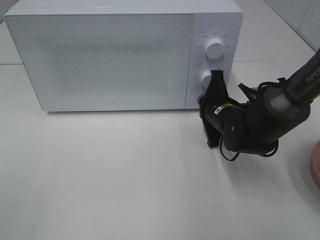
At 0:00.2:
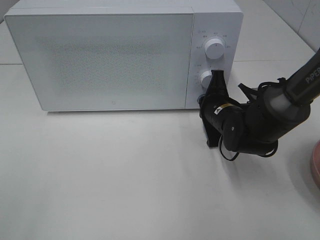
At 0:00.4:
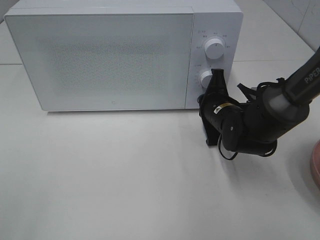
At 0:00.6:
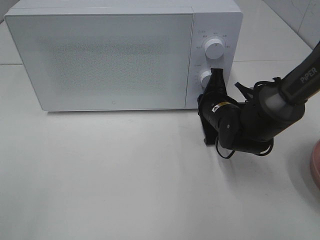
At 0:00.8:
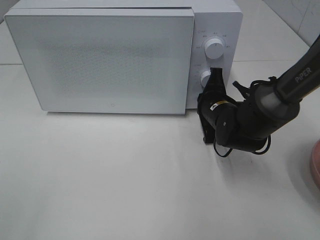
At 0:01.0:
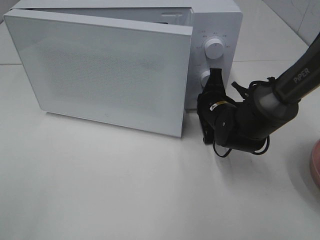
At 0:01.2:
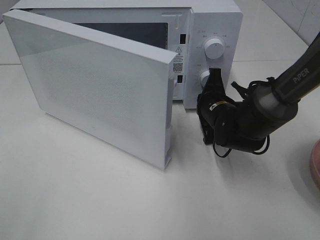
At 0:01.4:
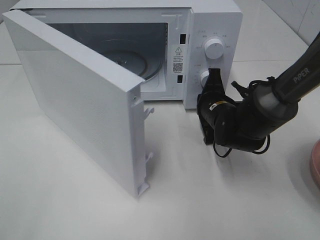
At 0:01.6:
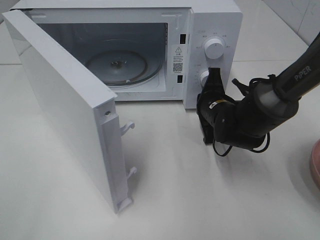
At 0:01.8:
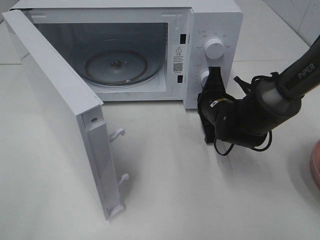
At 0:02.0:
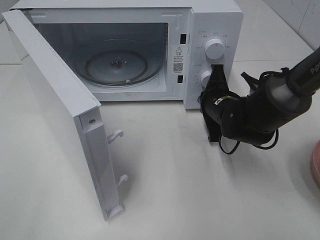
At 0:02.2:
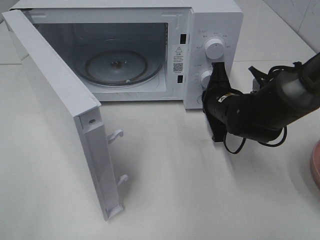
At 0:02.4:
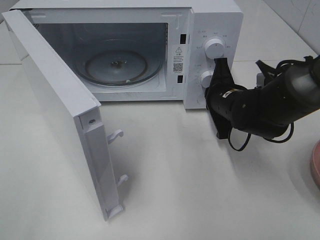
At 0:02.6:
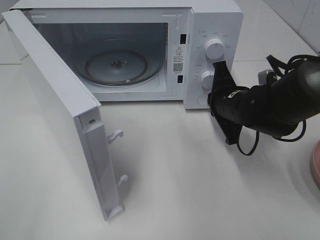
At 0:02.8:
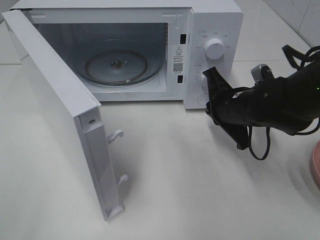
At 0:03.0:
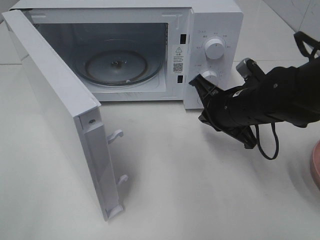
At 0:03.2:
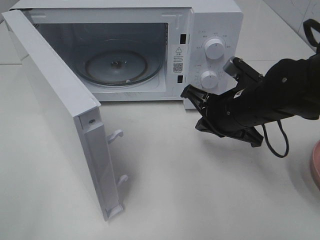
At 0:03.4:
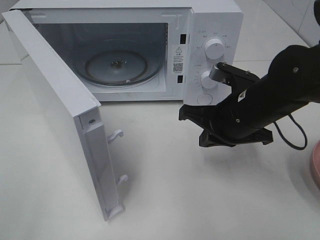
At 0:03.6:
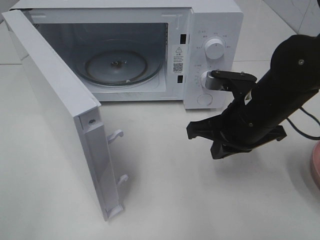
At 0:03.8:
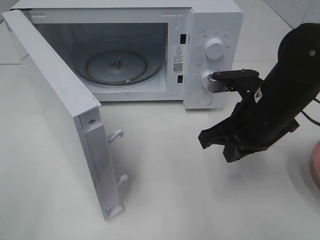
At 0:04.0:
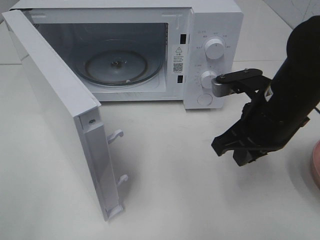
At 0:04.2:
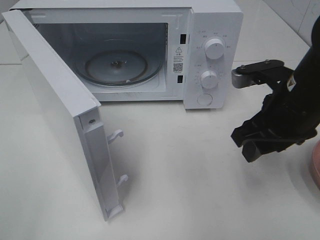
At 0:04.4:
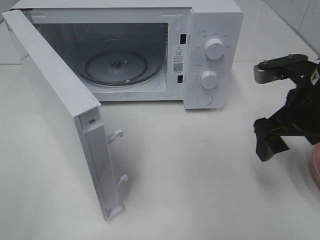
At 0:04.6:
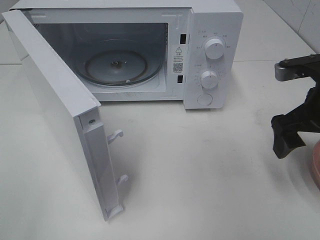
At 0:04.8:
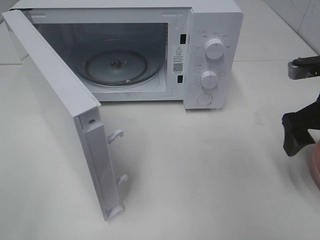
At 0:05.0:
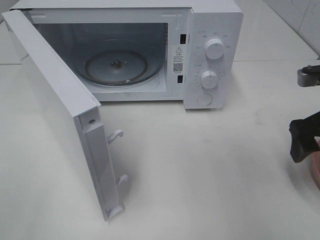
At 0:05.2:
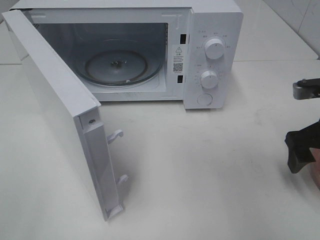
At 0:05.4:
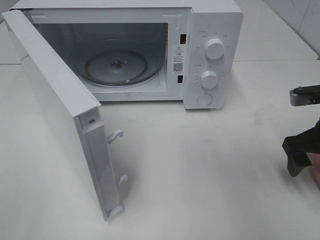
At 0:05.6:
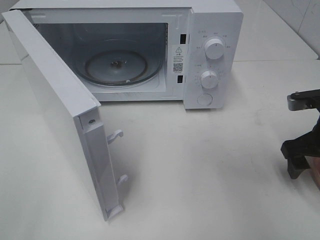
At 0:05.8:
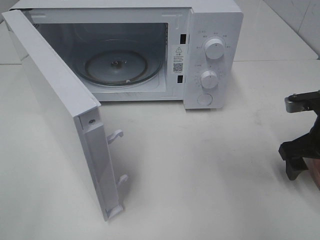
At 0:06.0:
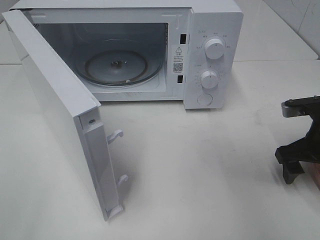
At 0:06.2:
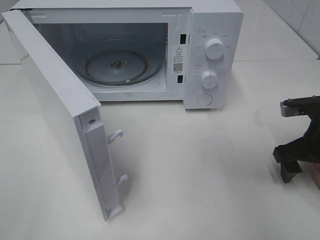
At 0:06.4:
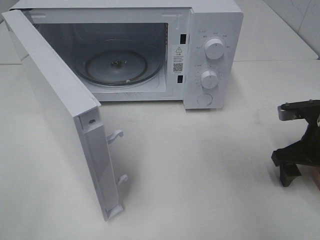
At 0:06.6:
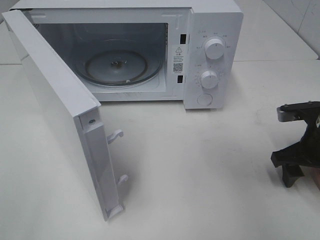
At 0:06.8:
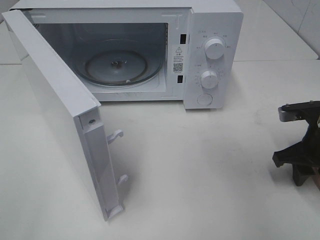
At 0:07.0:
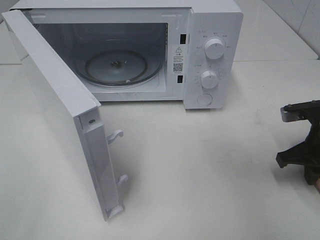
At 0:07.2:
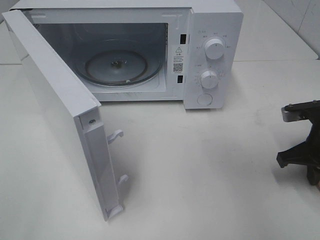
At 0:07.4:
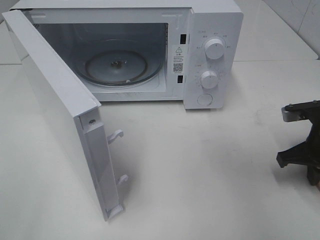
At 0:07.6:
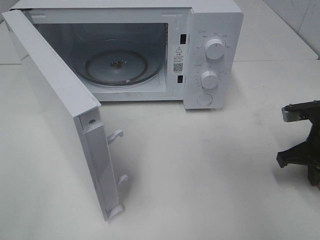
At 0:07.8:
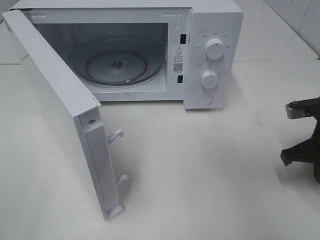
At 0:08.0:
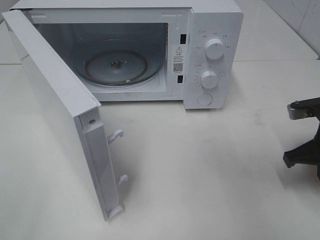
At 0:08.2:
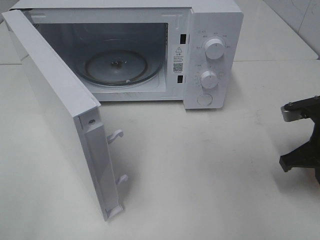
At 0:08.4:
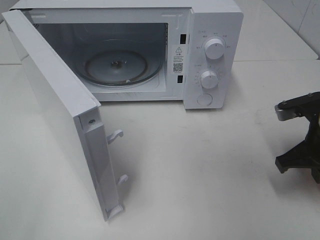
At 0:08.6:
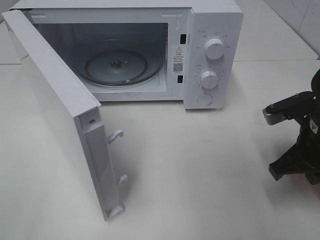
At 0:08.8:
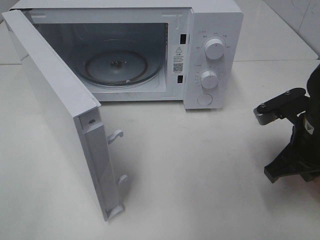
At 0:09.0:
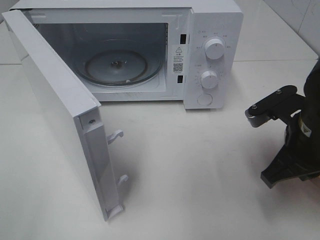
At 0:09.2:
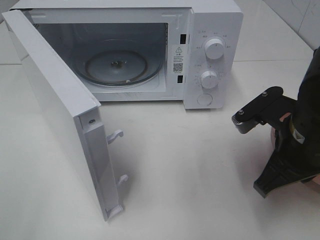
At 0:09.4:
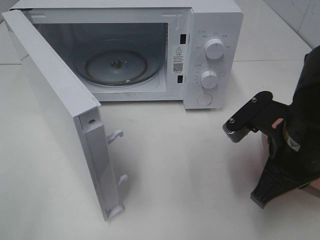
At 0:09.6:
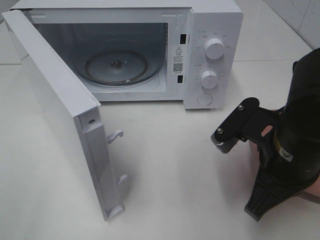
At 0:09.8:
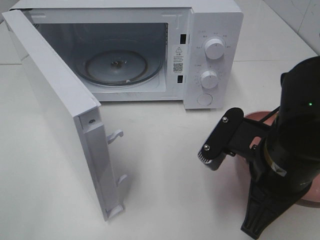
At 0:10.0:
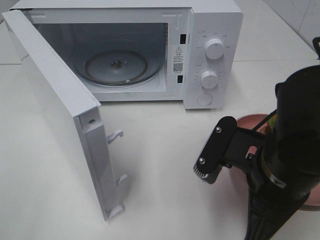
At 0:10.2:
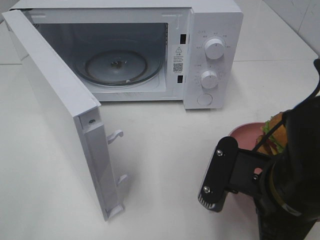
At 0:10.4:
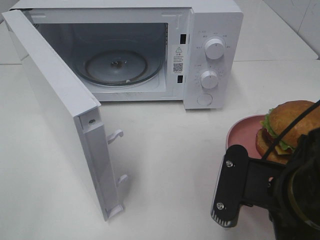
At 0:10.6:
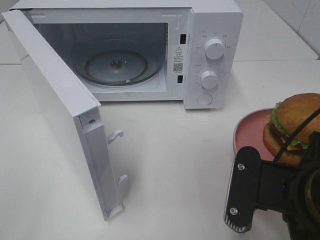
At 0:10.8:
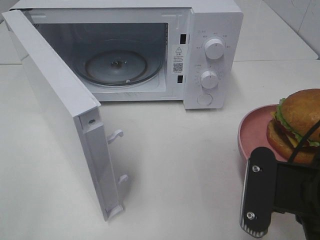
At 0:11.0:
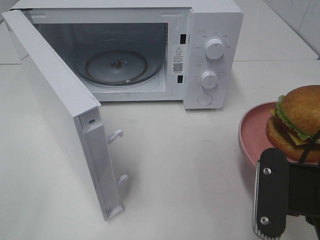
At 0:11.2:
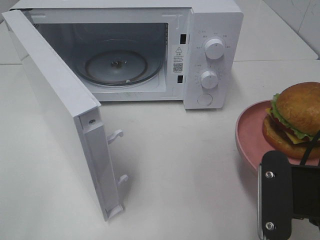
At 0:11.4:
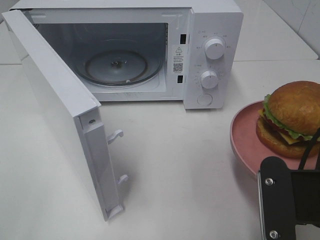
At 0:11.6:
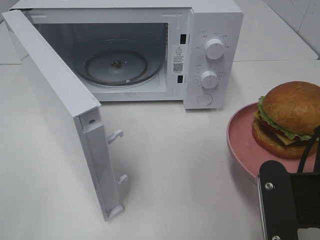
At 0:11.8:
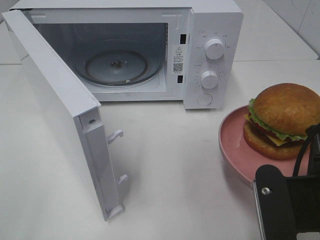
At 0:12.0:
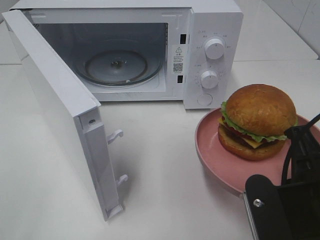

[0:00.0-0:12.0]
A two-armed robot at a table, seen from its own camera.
Task of the whole recording: Heat the burger.
Step, 0:00.0 to 0:02.4: Right hand: press the switch.
Step, 0:02.6 to 0:07.4: Right hand: grab the plate with the hamburger.
0:01.6 to 0:03.0: The right gripper moves backward and upward, some 10 cm.
0:03.0 to 0:04.4: The right gripper goes roughly 10 cm to the right and upward, and opens up.
0:04.4 to 0:06.0: The right gripper travels downward and to the right by roughly 10 cm.
0:06.0 to 0:07.6: The right gripper closes up.
0:07.6 to 0:09.0: The right gripper is displaced to the left, upward and backward by some 10 cm.
0:09.0 to 0:10.4: The right gripper goes about 10 cm backward and to the left.

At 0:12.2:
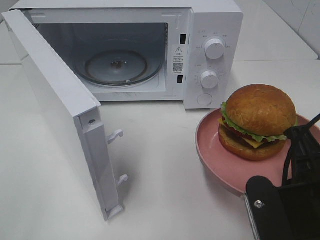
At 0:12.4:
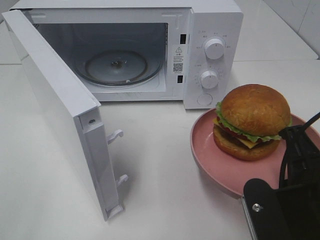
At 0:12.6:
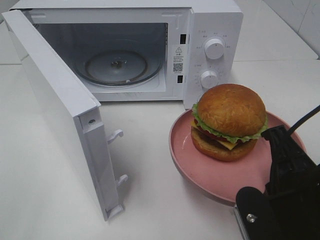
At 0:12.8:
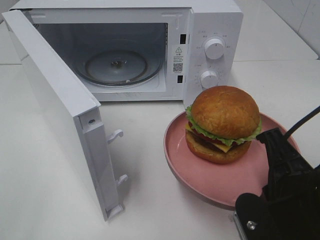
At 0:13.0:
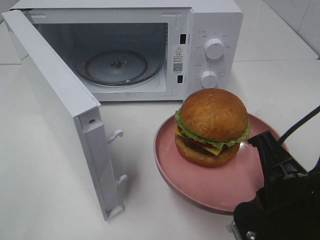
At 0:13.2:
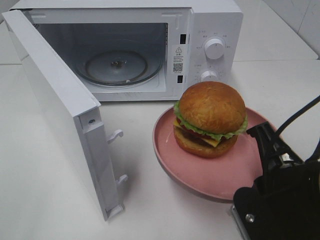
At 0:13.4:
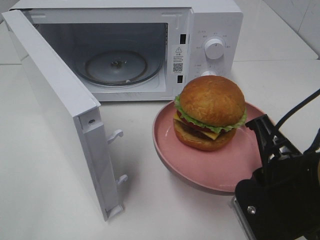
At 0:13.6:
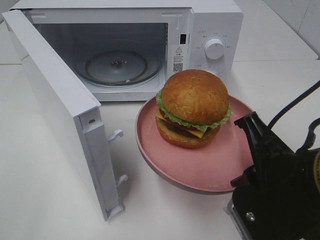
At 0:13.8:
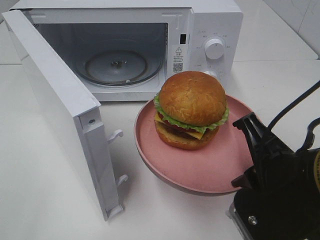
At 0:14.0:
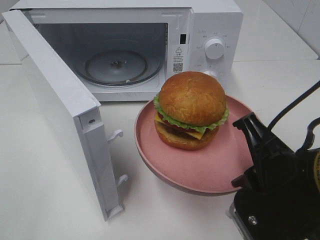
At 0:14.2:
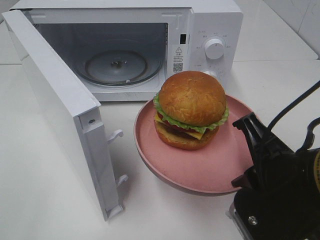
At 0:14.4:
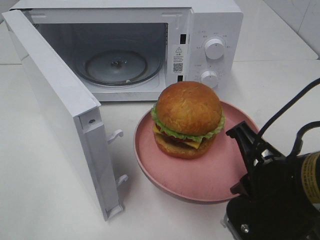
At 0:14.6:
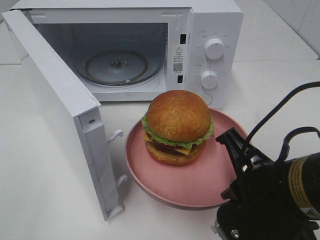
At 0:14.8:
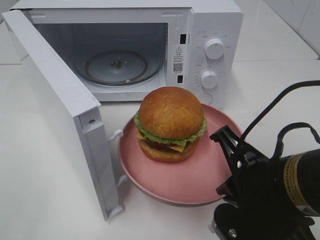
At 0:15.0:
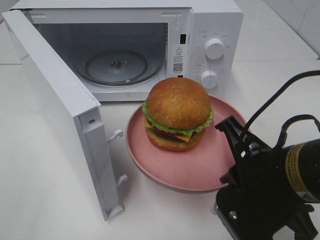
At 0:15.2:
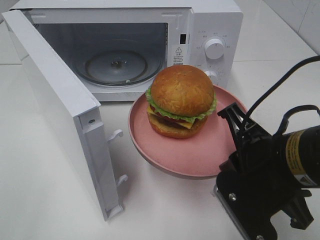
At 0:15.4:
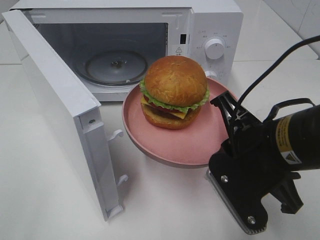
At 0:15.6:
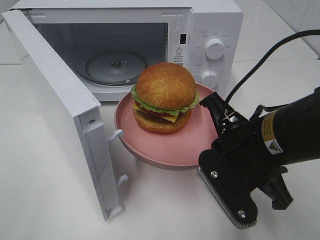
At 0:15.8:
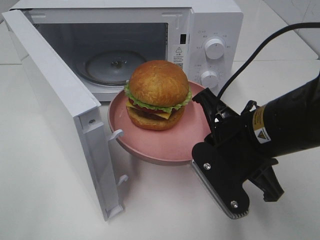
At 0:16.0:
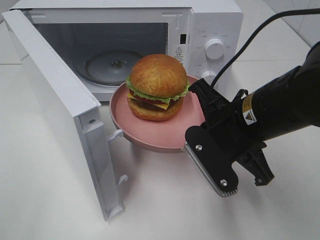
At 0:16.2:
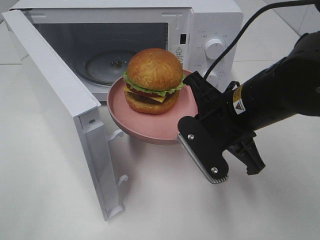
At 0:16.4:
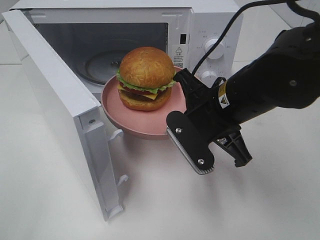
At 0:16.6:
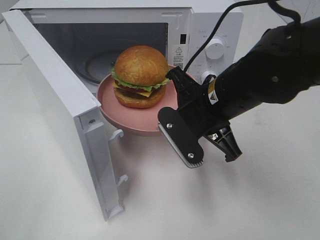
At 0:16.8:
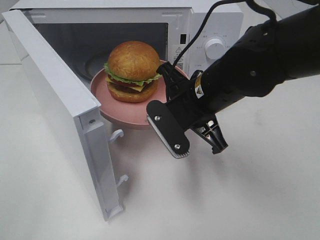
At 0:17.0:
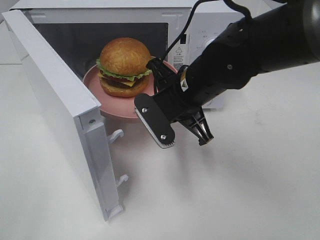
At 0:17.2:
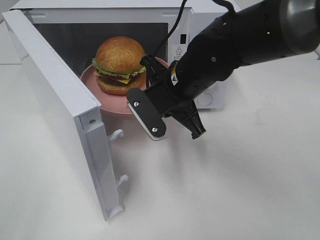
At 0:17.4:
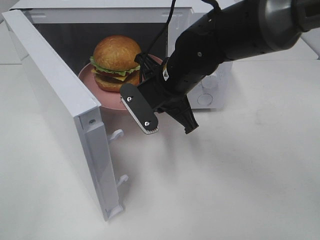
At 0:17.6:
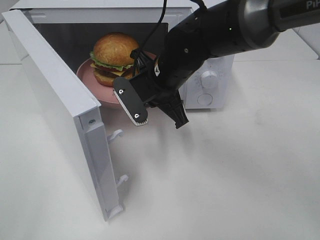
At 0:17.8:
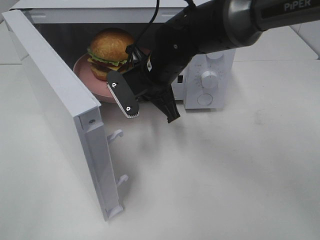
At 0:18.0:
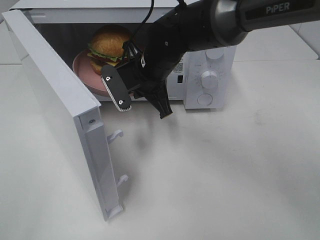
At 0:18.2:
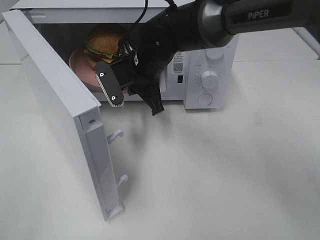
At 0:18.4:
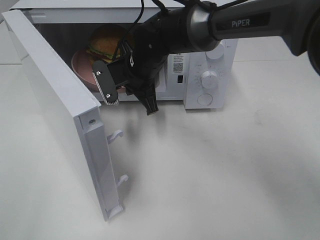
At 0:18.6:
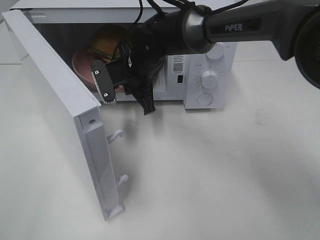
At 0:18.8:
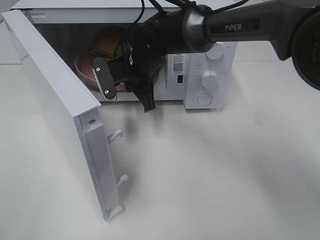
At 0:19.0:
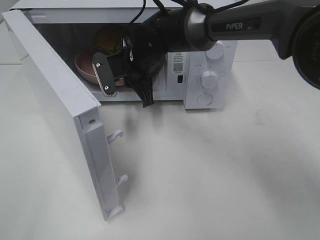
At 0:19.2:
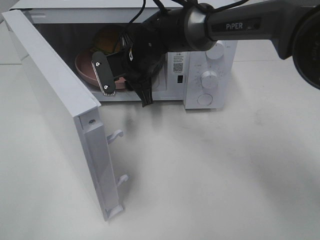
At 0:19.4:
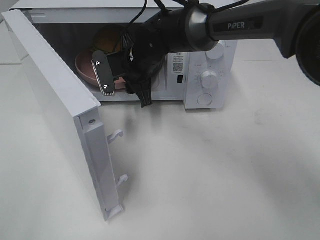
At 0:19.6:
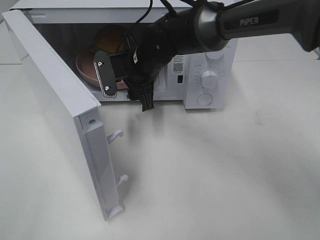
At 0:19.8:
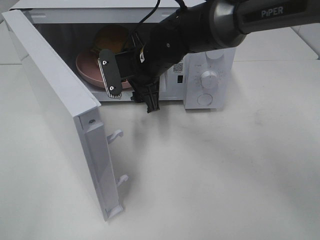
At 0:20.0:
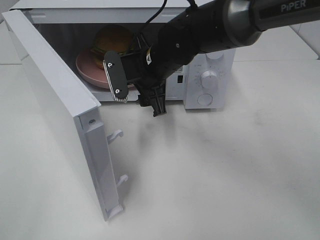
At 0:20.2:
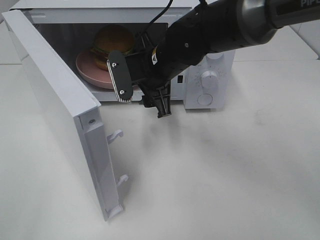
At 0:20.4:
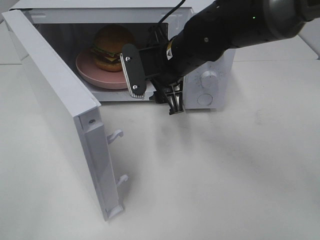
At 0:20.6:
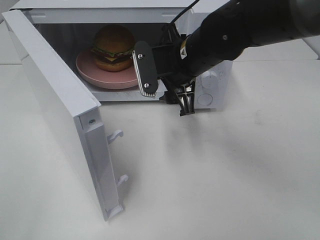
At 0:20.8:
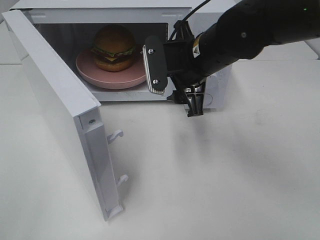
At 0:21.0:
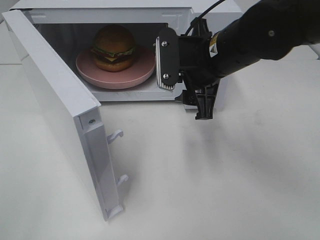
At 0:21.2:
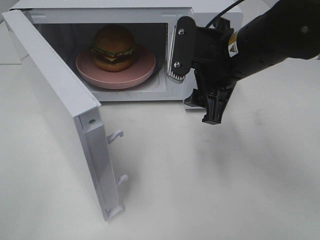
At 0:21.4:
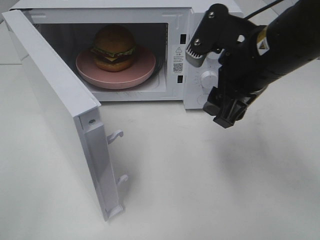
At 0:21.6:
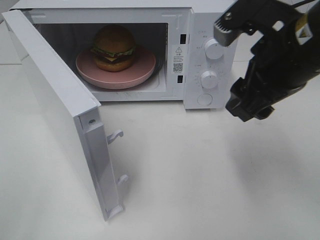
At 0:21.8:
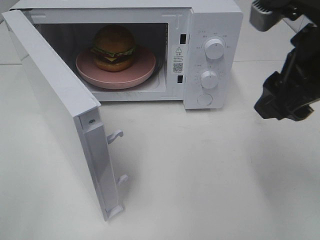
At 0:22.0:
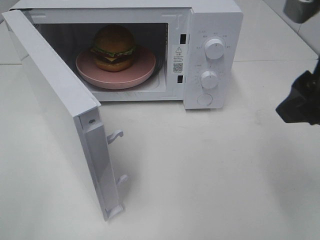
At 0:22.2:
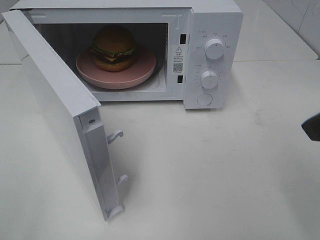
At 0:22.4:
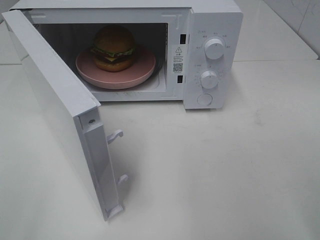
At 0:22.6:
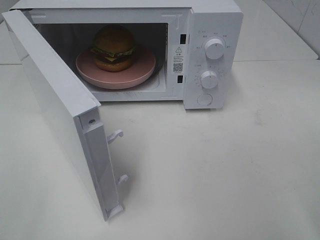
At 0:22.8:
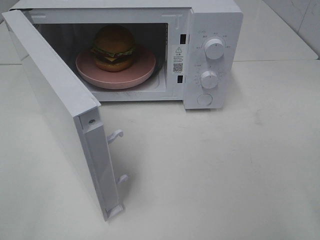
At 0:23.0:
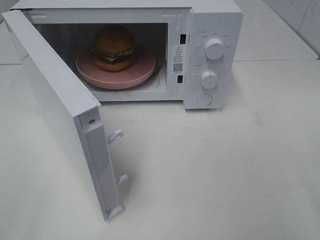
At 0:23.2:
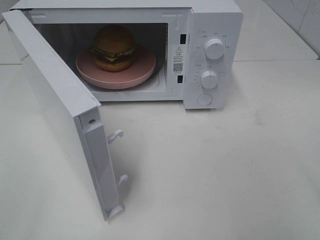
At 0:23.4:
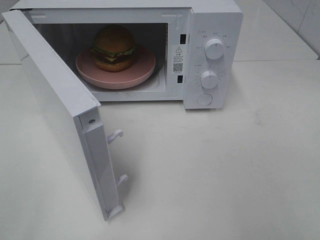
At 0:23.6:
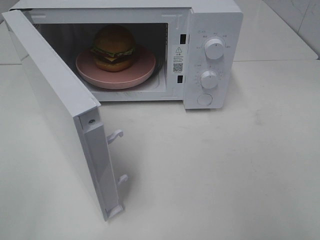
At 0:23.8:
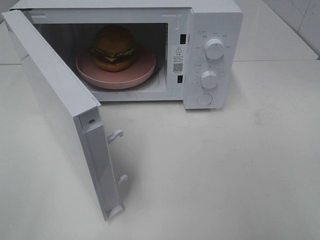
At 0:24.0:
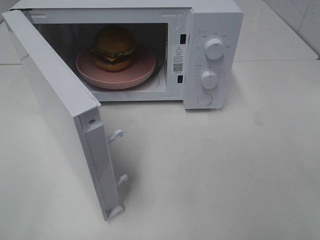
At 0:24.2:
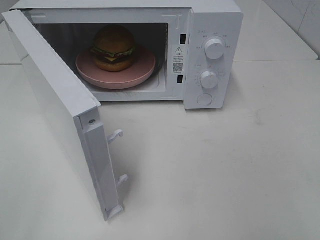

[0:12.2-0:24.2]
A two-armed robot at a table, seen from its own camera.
Task of the whole recording: Heat the burger.
Step, 0:12.2 to 0:19.2: Right hand: place the plate in the microwave.
0:13.8 to 0:15.2: The grippers move only a little.
0:15.2 to 0:16.6: The right gripper goes some 10 cm forward and to the left.
0:16.6 to 0:18.2: The right gripper moves forward and to the left, about 15 cm.
0:18.2 to 0:19.8: The right gripper opens up.
0:19.8 to 0:21.2: The right gripper moves to the right, backward and upward, roughly 15 cm.
0:21.2 to 0:22.6: The right gripper goes some 25 cm backward and to the right.
